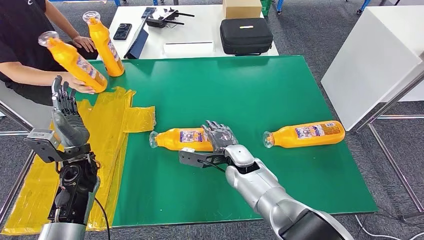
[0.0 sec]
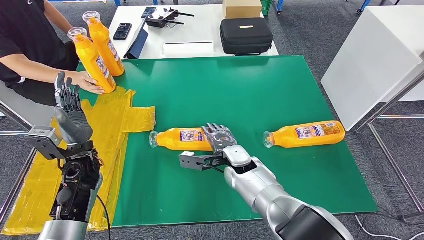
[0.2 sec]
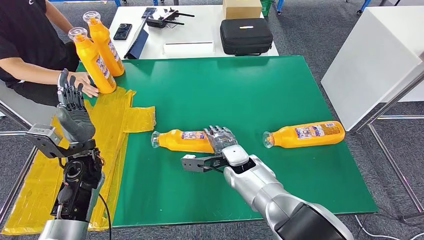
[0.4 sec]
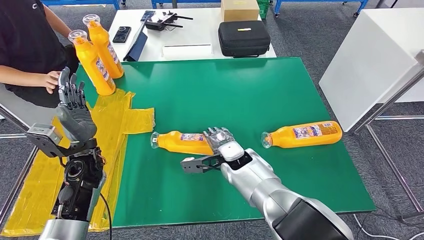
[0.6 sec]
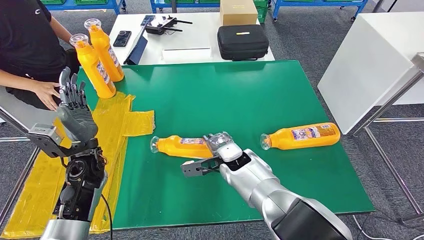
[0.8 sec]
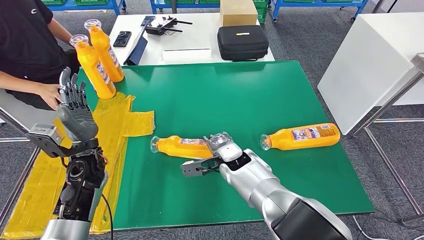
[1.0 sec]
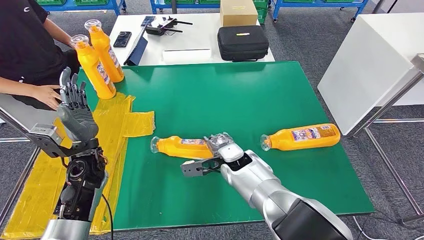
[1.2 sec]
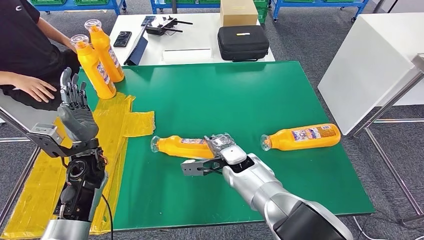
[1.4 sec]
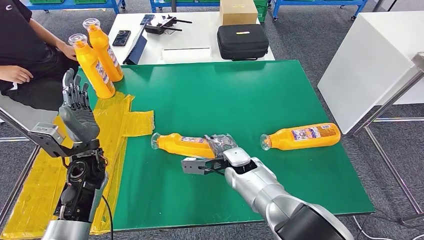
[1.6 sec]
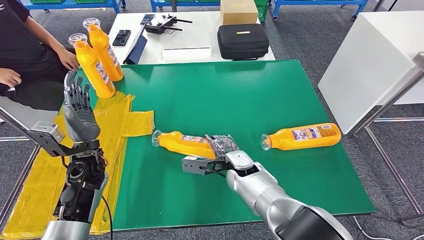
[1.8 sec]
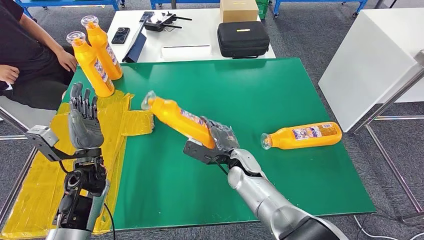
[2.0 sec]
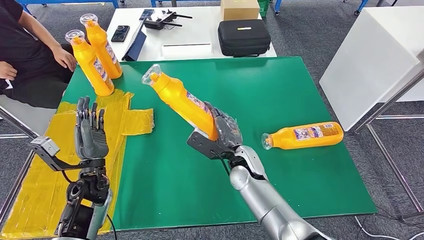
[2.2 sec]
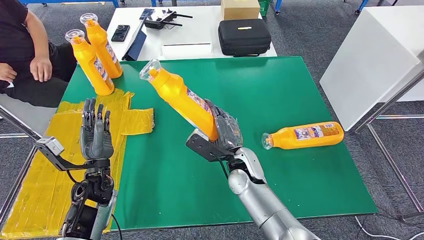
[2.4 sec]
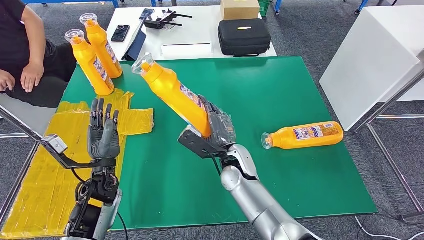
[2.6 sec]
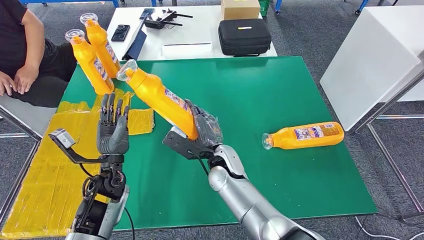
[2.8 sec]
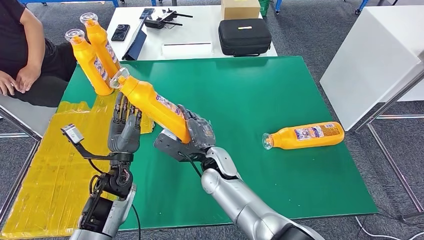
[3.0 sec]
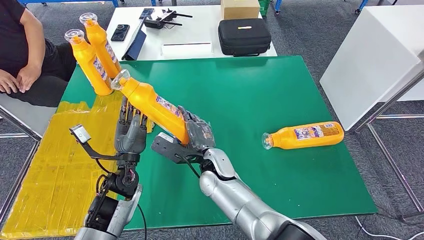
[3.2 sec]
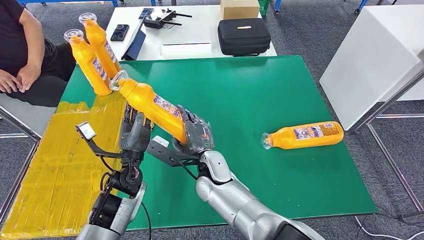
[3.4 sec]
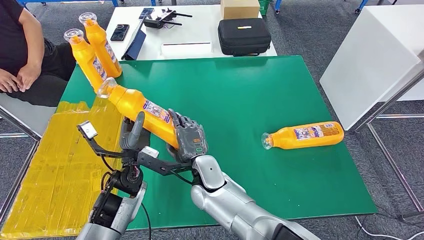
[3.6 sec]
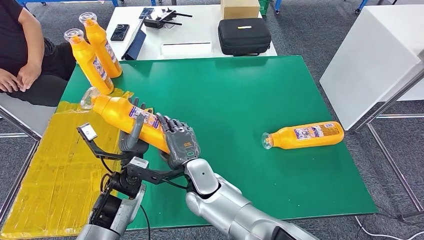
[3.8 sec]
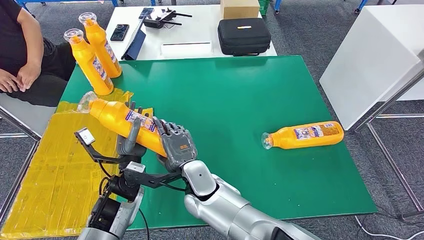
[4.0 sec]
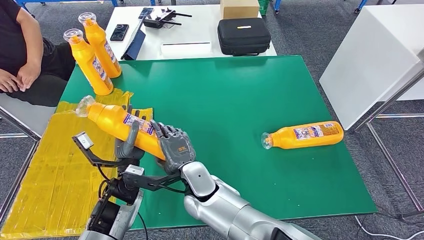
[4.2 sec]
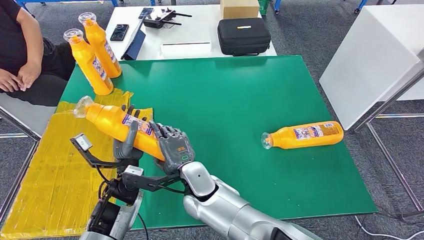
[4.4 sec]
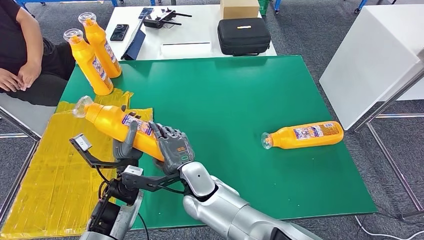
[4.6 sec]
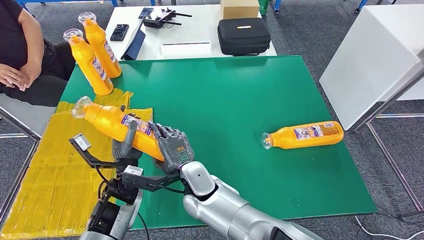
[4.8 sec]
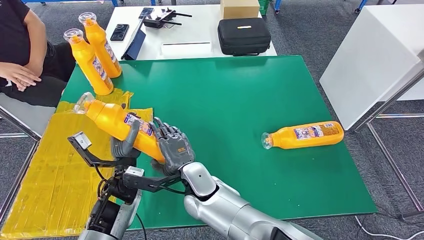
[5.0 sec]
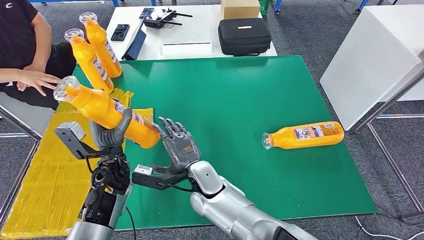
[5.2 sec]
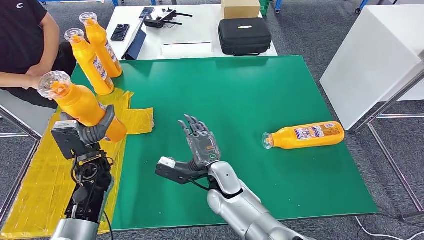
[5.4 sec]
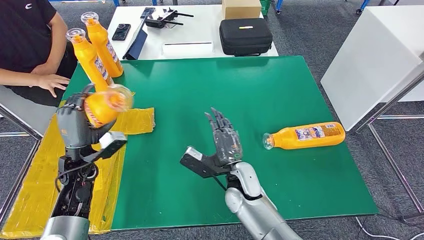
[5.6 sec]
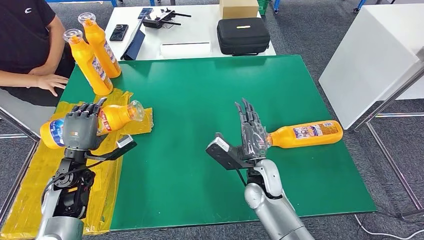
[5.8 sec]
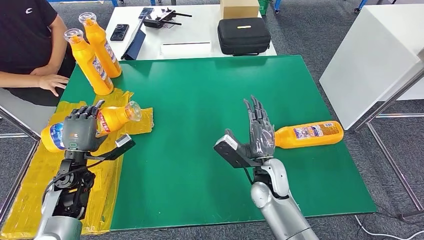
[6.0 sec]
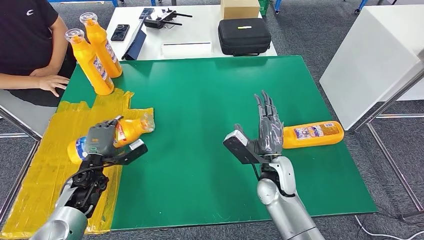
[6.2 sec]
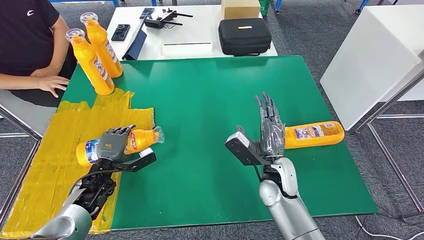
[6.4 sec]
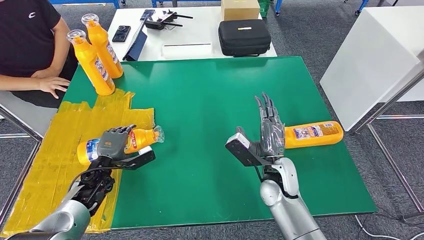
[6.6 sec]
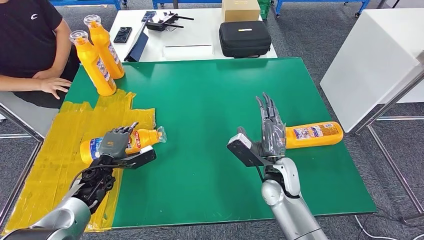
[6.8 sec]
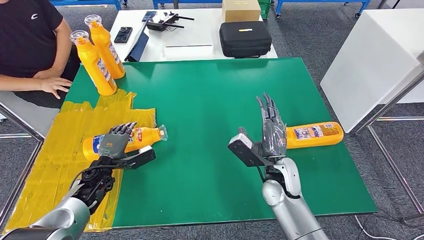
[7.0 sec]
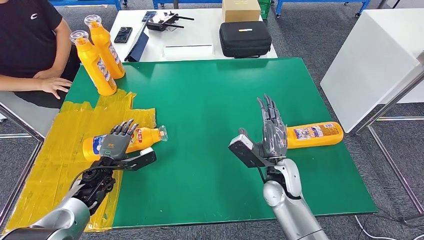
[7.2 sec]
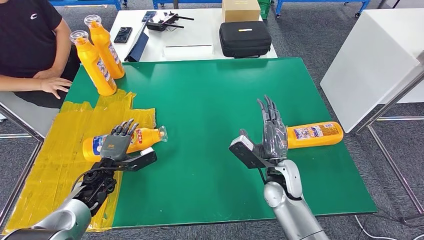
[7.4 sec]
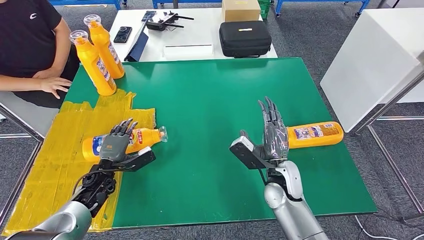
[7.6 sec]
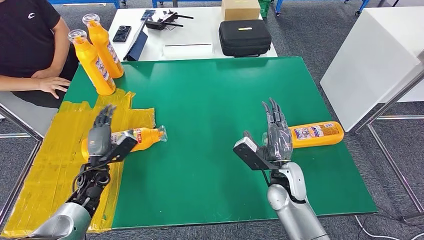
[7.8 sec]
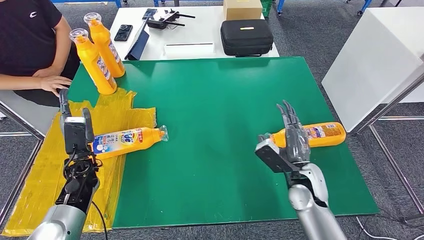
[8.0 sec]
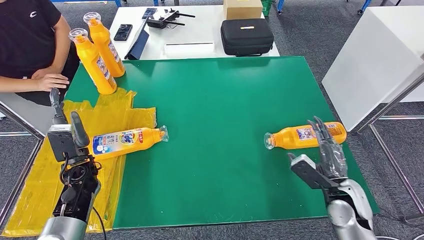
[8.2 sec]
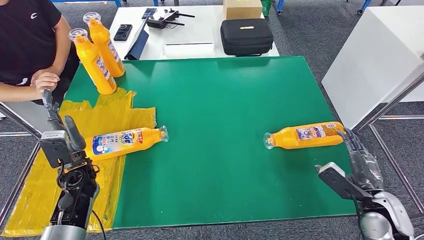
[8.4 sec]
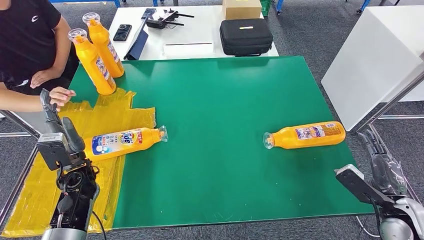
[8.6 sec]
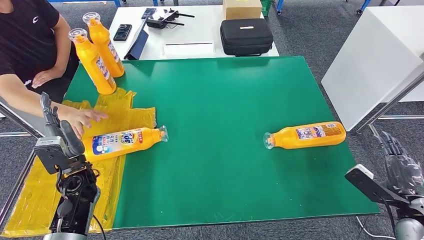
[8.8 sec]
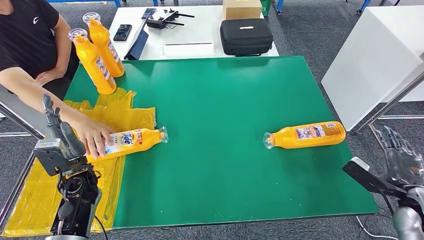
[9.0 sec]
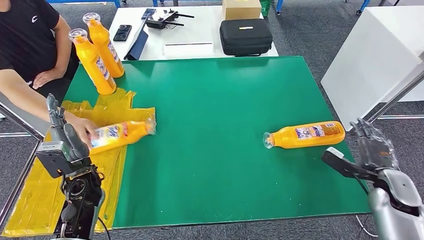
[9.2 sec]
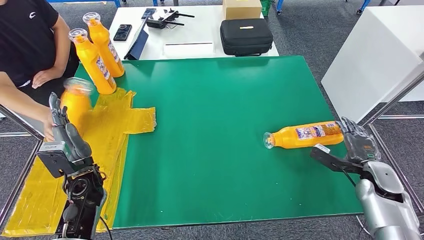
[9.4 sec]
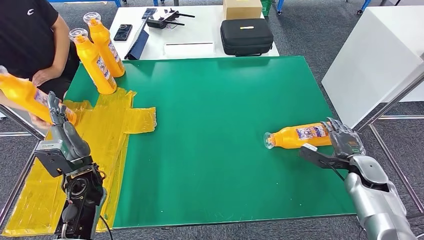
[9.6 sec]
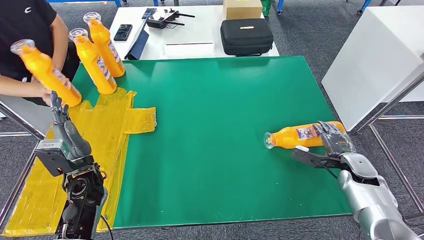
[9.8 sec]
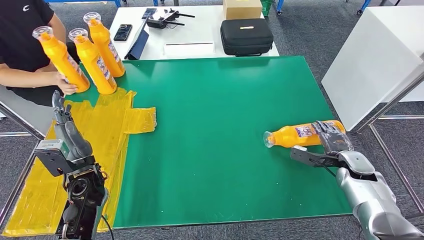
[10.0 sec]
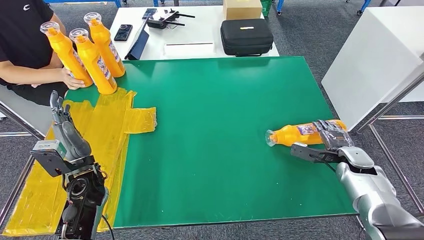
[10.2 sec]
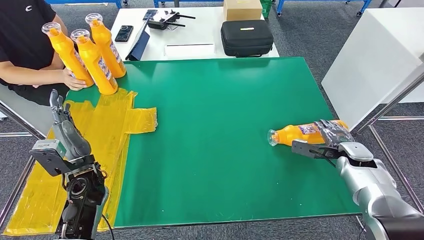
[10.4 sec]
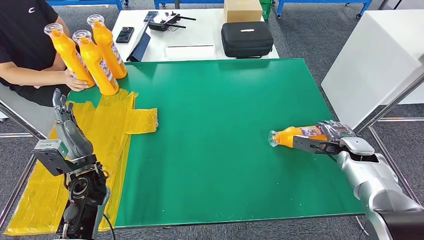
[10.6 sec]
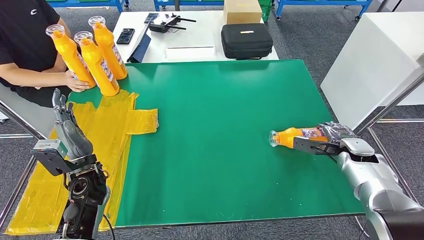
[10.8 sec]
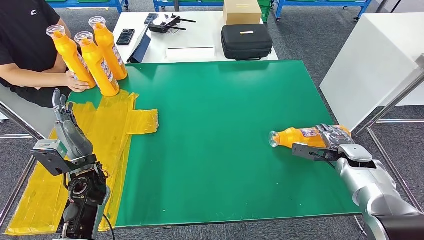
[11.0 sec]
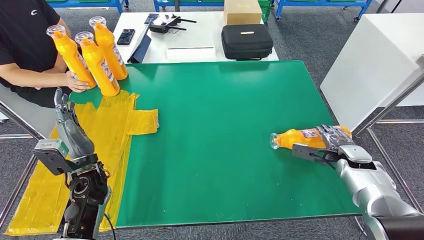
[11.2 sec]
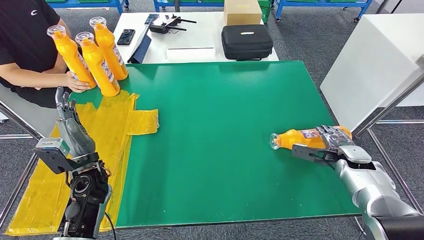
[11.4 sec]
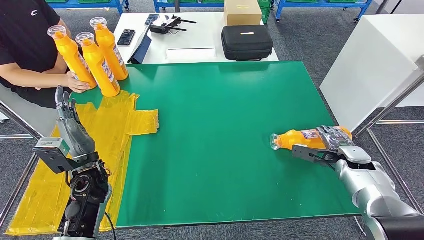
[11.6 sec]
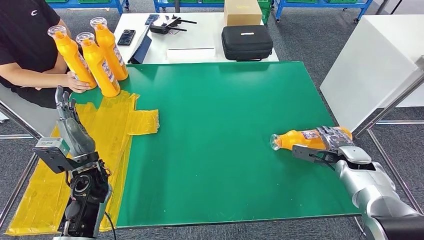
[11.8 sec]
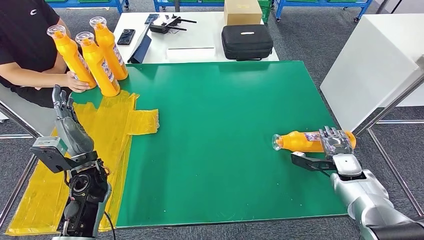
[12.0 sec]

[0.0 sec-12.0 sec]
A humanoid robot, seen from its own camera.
Step, 0.0 sec to 4.8 sec: Pick up the fast-moving consumer goods bottle from the table.
Step, 5.0 sec to 10.2 sec: Flip the fast-moving consumer goods bottle to the front side.
3.0 sec to 4.4 sec: The right hand travels backward and to the left by approximately 10 cm.

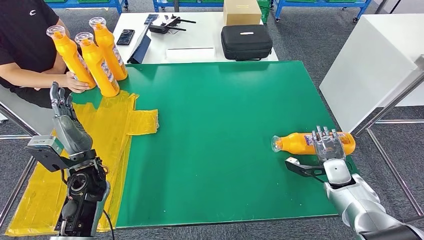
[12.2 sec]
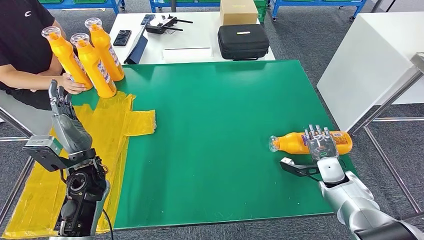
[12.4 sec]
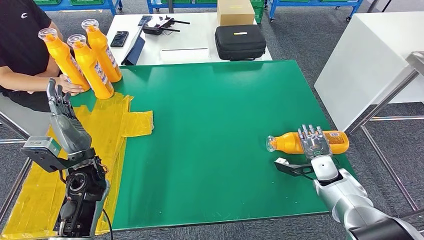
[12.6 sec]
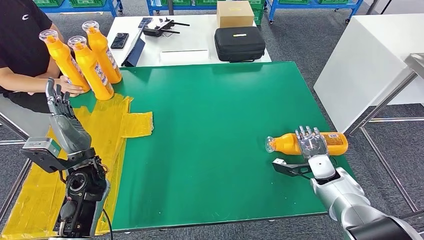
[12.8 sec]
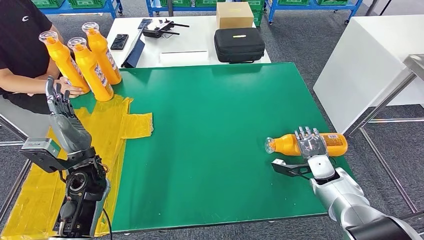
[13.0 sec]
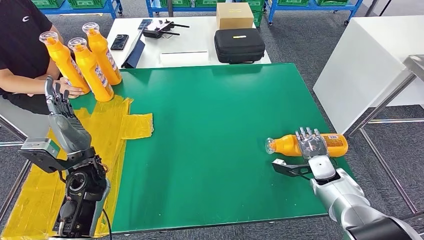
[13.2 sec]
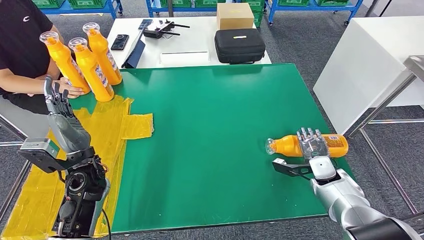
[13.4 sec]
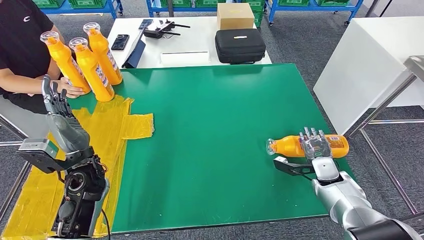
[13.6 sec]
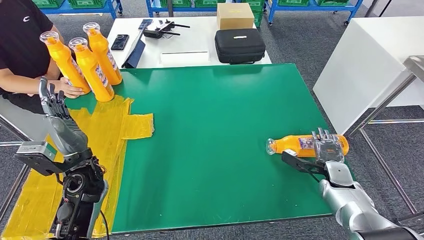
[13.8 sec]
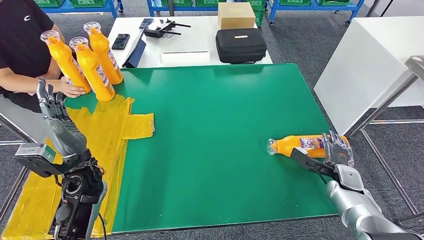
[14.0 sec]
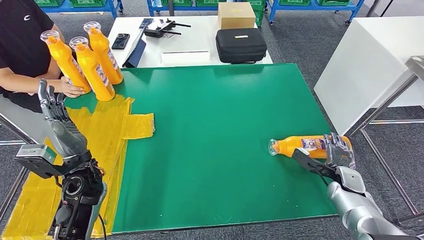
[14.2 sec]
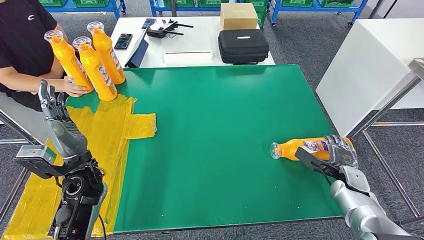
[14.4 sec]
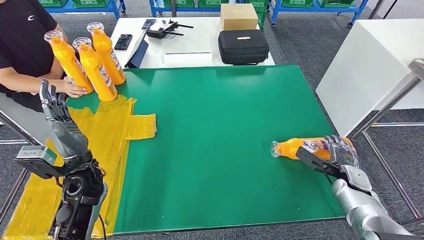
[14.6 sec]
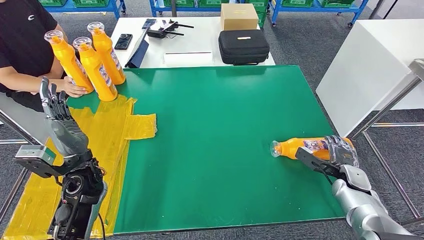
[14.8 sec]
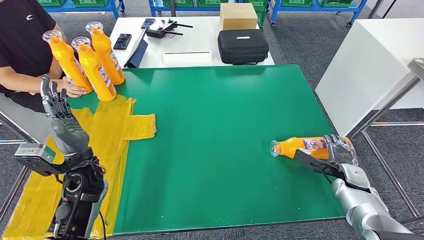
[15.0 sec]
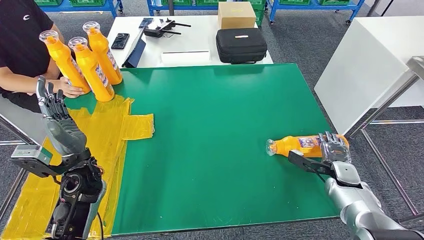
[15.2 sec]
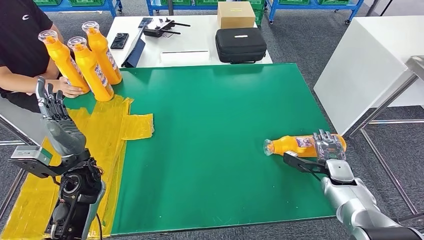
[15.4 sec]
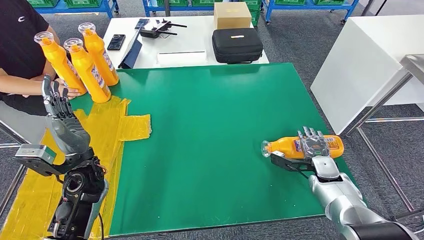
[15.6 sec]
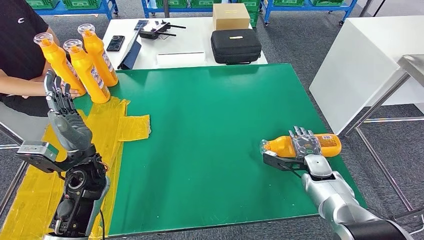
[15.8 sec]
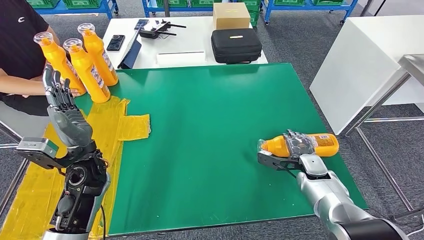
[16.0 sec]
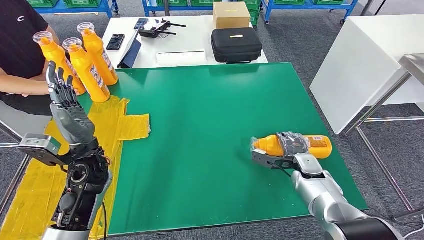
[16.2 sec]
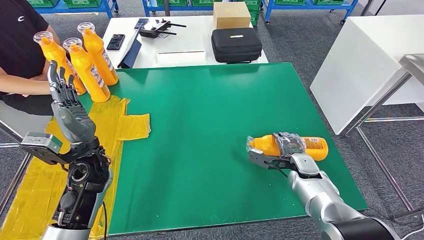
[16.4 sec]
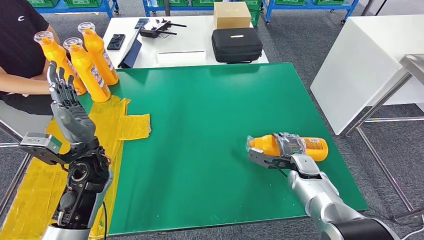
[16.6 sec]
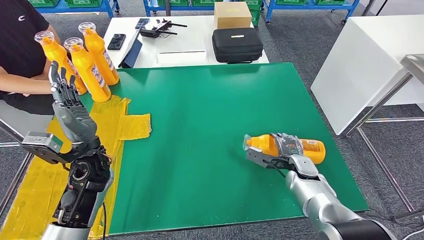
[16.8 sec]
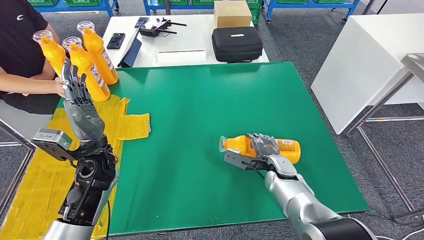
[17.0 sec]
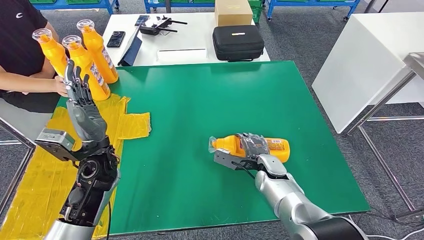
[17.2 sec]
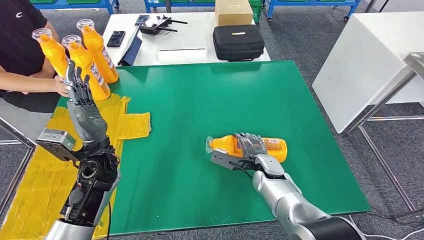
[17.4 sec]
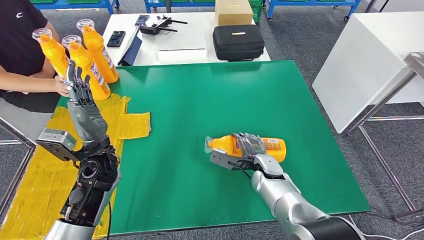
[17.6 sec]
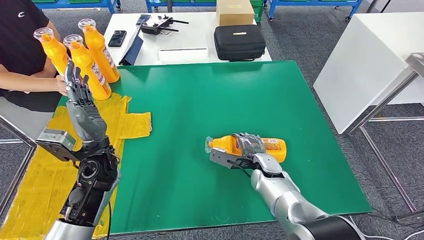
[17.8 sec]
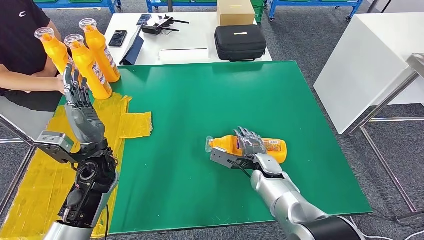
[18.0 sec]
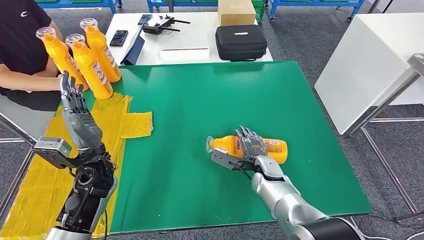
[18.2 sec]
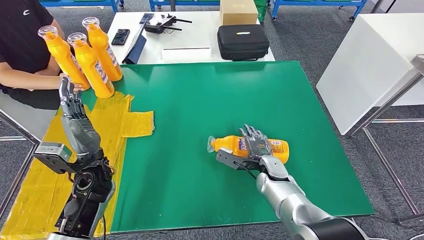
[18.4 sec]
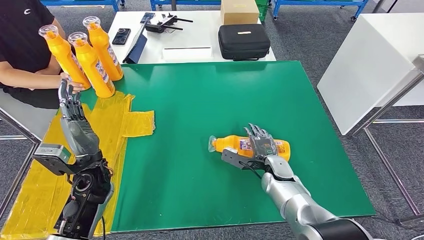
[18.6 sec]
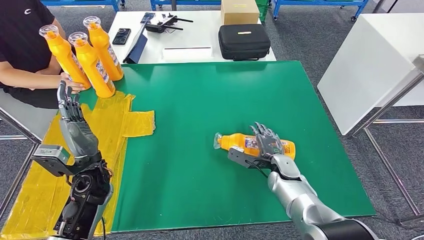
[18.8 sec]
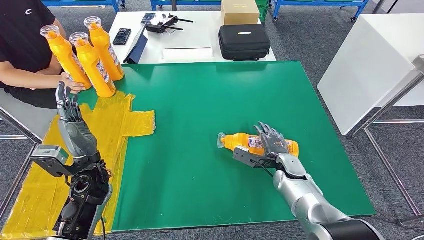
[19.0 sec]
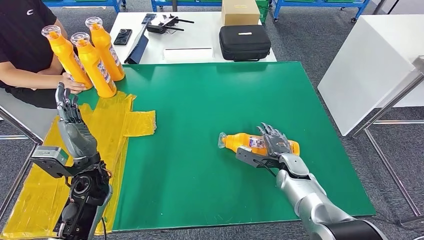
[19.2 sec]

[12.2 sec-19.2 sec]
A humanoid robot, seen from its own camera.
13.6 sec to 15.0 sec: The right hand moves to the right, roughly 5 cm.
